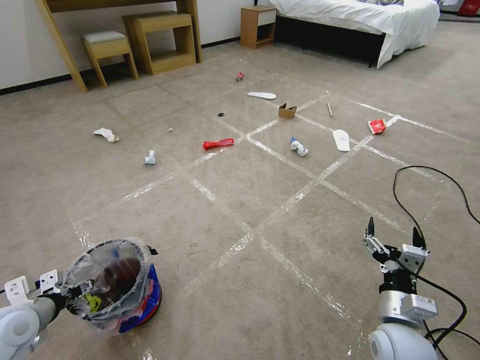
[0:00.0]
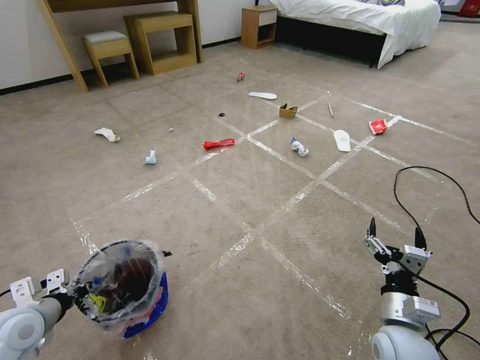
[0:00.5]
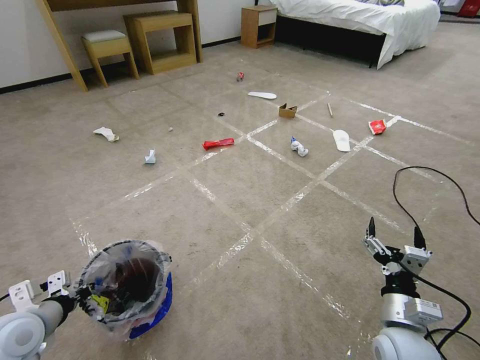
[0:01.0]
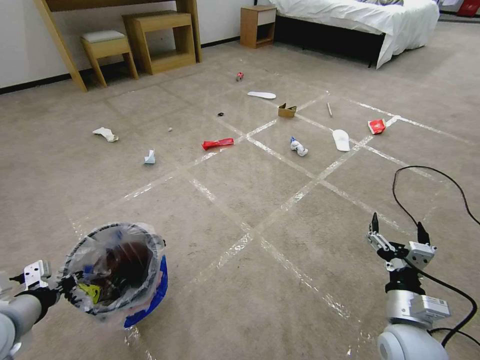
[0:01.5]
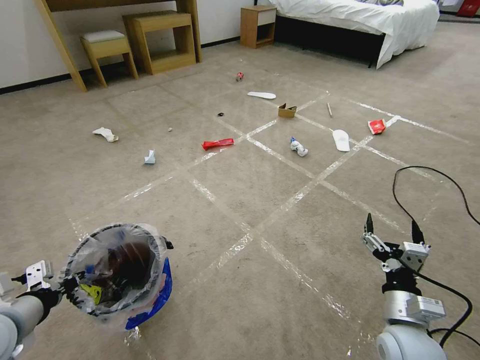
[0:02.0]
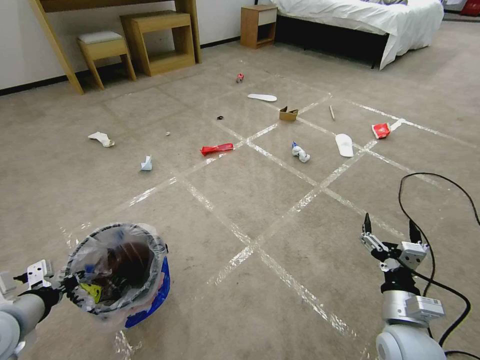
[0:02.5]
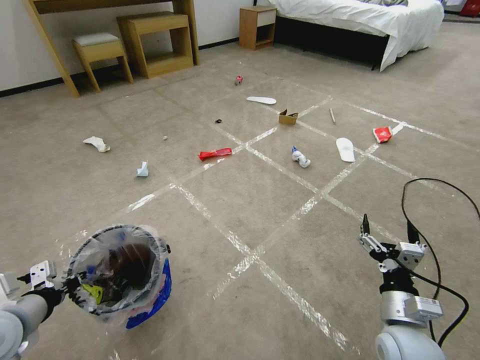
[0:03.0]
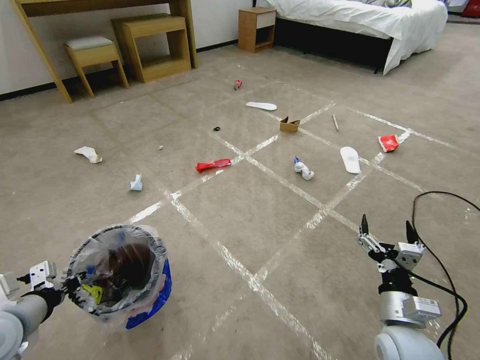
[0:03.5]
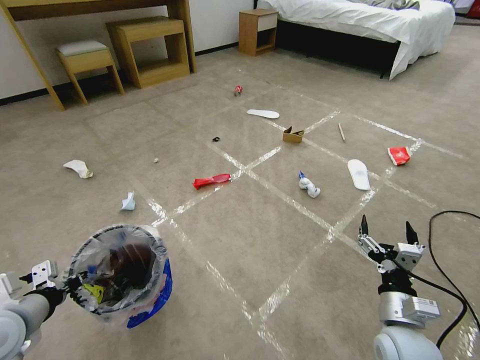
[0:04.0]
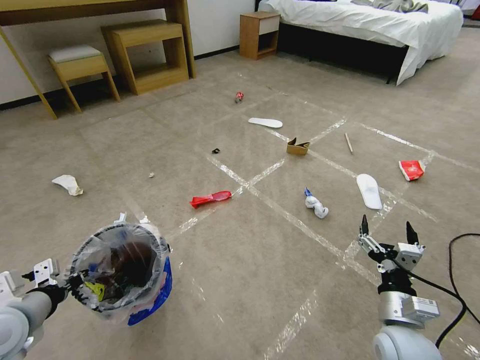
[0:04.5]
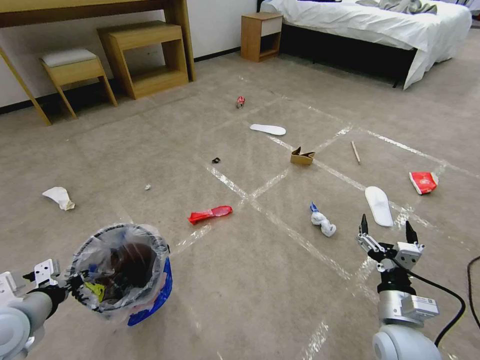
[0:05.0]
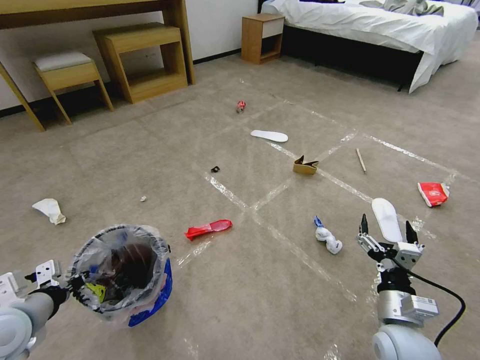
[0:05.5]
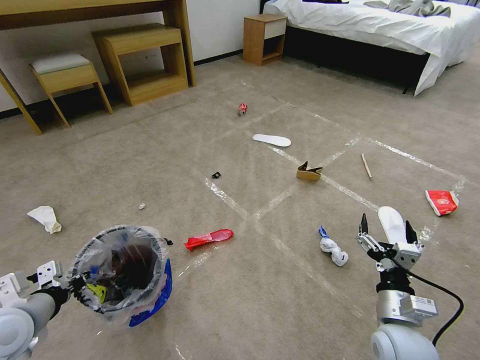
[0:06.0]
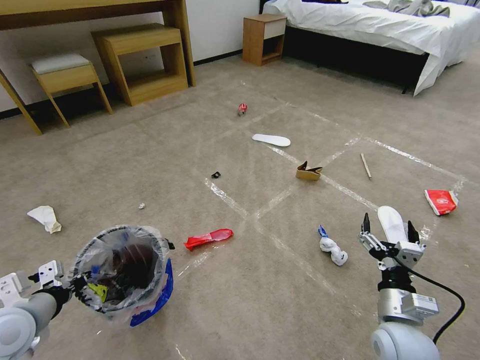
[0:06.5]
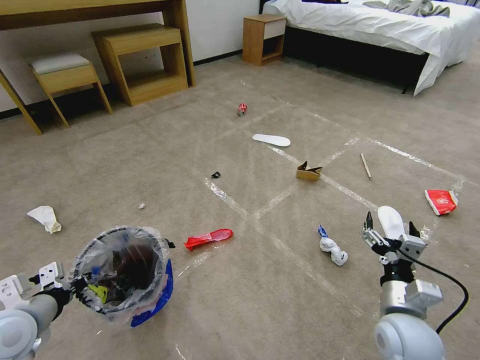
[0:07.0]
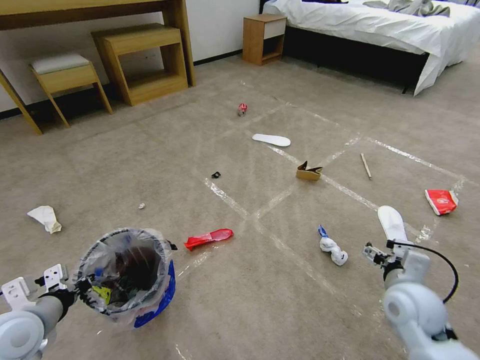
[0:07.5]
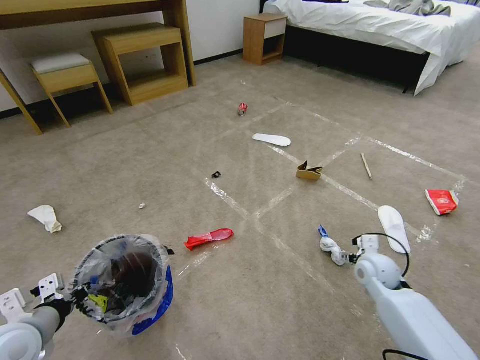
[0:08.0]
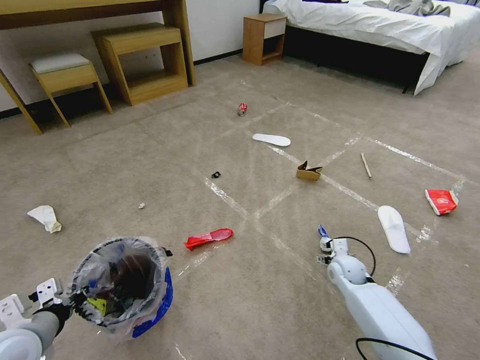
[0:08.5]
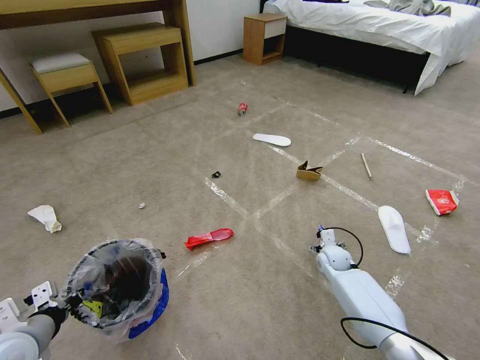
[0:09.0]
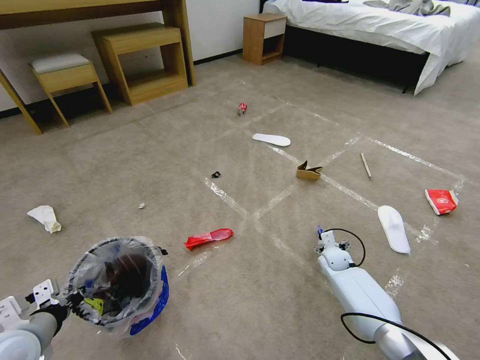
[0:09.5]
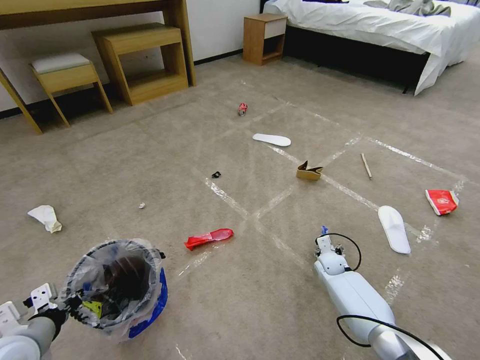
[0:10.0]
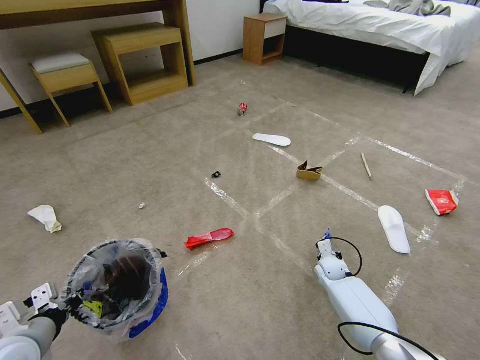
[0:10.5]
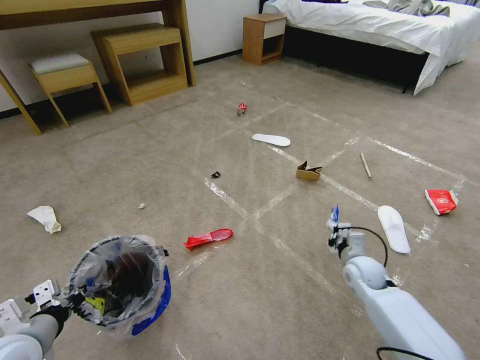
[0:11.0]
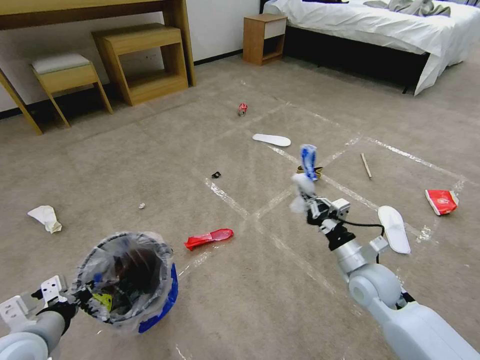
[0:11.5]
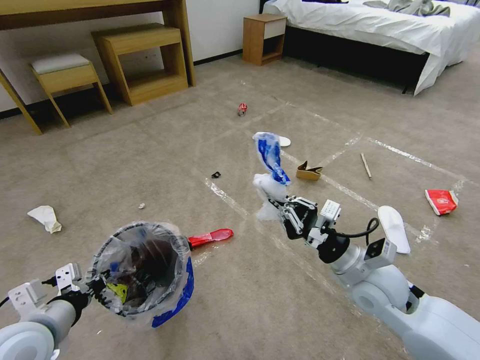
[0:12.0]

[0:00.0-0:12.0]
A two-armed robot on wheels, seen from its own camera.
Task of the whole recording: Pick up the trash bin and place the garbage on the floor into it.
0:00.0 to 0:02.0: The left gripper heads upward, covering some 10 cm, and closes.
0:06.0 to 0:08.0: The right gripper moves forward, roughly 15 cm.
0:08.0 to 0:10.0: The right gripper shifts roughly 15 cm downward and forward.
0:10.0 to 0:12.0: The left gripper moves to the right, approximately 5 cm; the right gripper heads upward and backward, covering about 30 cm, and closes its fingers.

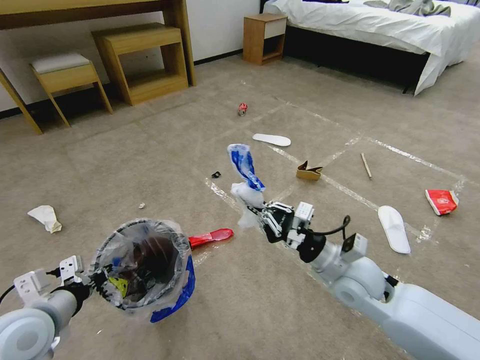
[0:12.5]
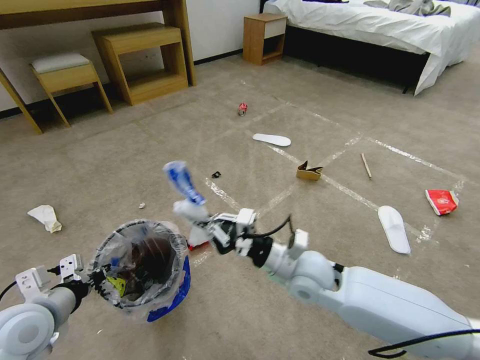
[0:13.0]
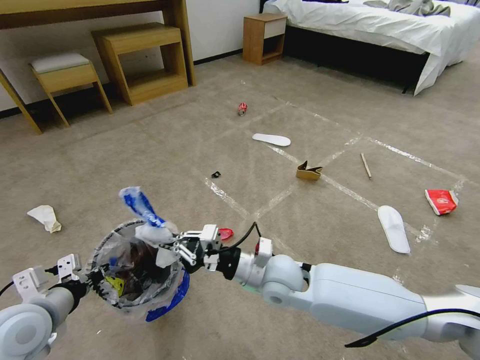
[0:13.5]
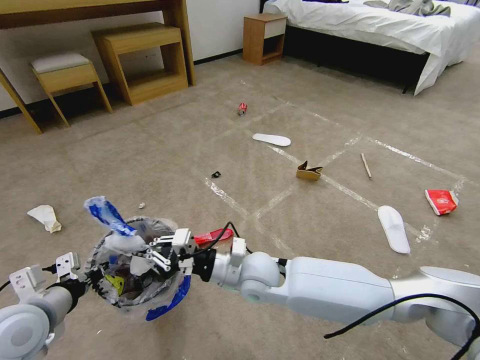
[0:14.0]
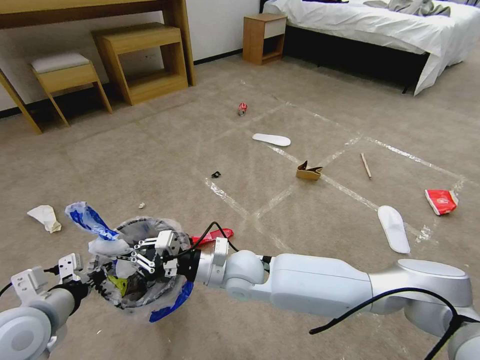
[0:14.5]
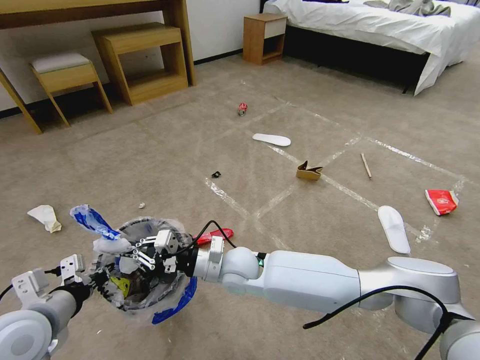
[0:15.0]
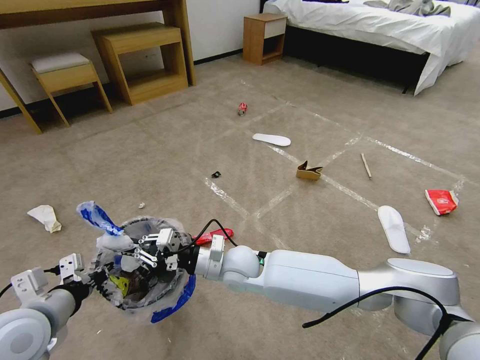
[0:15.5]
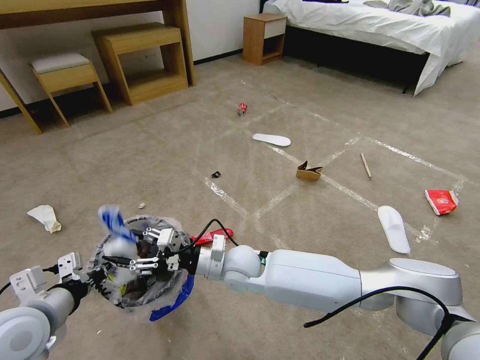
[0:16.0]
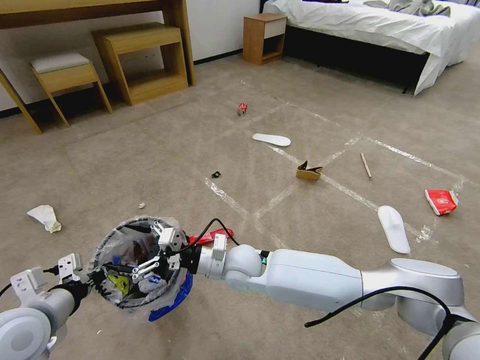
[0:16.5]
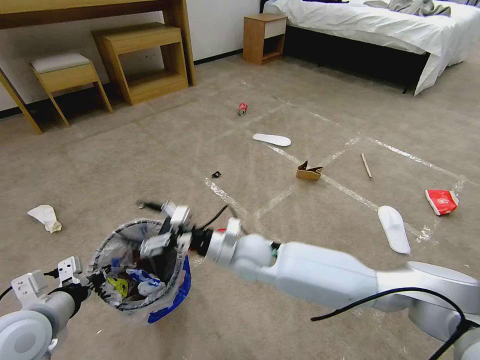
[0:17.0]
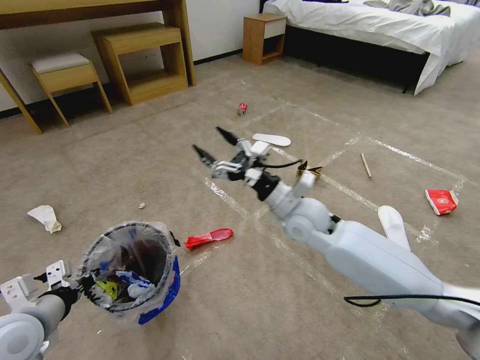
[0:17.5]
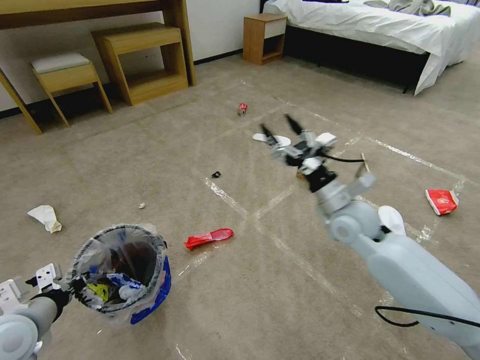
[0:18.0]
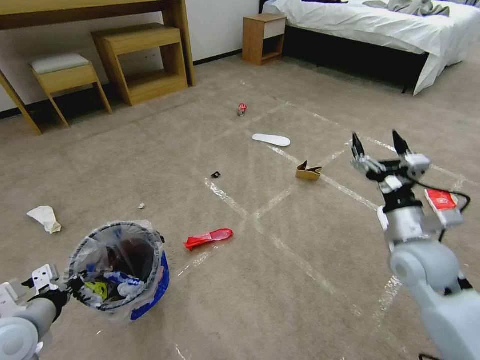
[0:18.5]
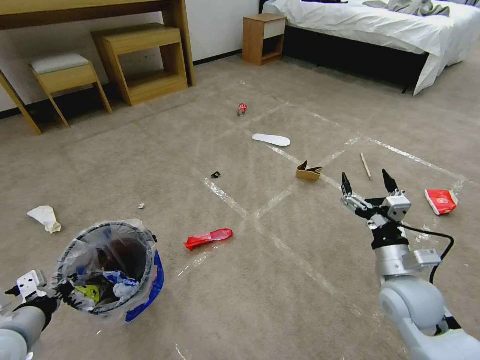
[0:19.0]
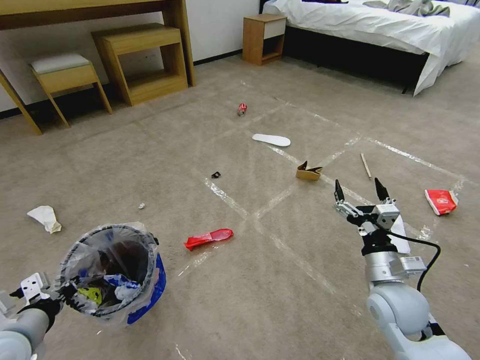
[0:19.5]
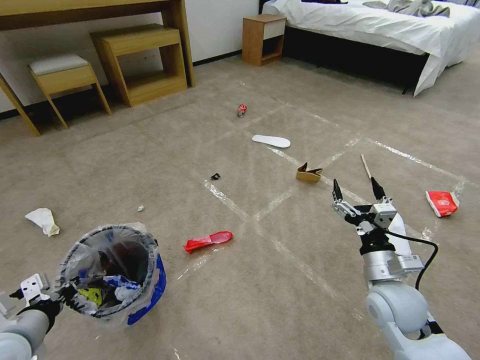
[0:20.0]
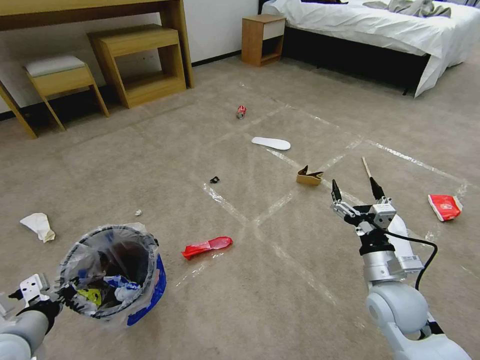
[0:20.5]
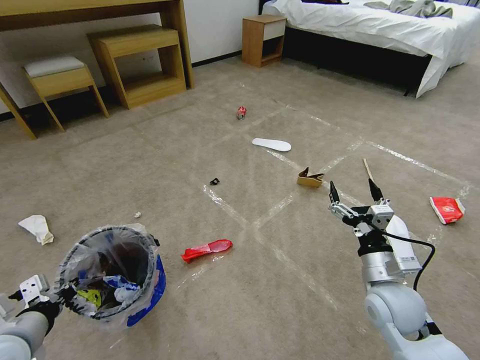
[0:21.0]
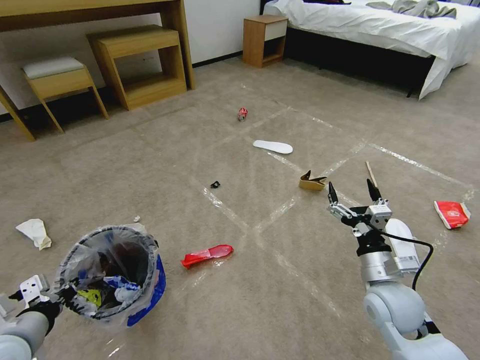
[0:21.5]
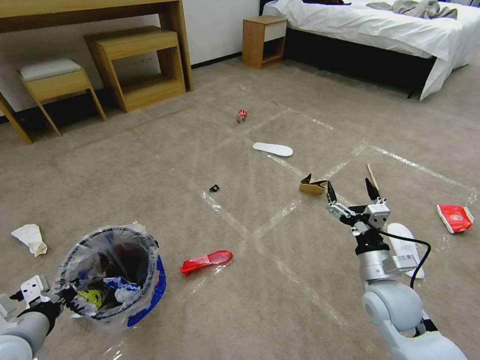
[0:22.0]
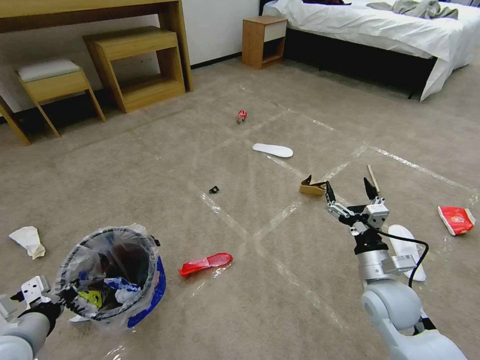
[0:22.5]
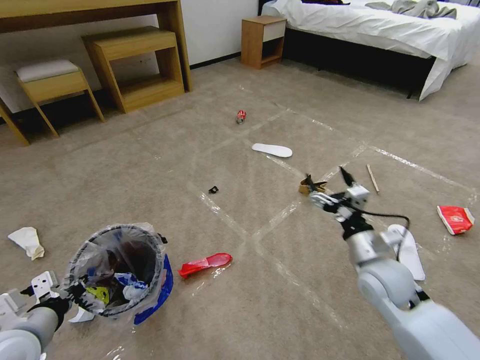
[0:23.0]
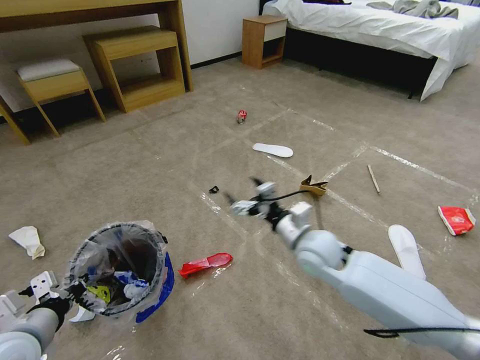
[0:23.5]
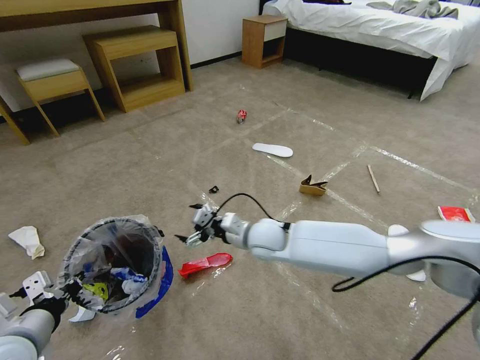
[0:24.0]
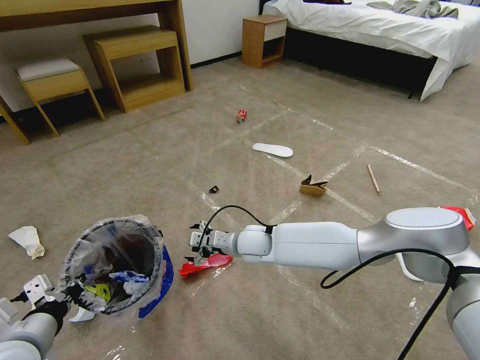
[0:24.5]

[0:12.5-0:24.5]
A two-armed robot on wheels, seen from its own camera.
Task of the whole recording: Pick up the trash bin and place the garbage on the floor into it.
0:12.5 to 0:14.5: The right gripper moves to the left, approximately 20 cm.
0:14.5 to 0:16.5: The right gripper opens its fingers.
0:16.5 to 0:18.5: The right gripper shifts about 35 cm to the right.
0:18.5 to 0:20.5: The right gripper goes about 10 cm downward.
0:20.5 to 0:22.5: Neither gripper changes place.
0:22.5 to 0:24.5: The right gripper goes roughly 30 cm to the left and forward.

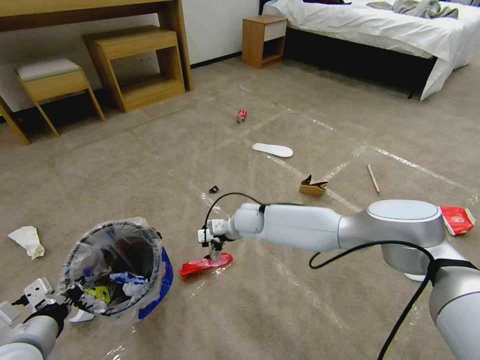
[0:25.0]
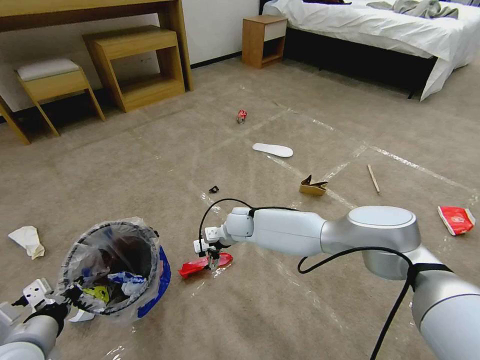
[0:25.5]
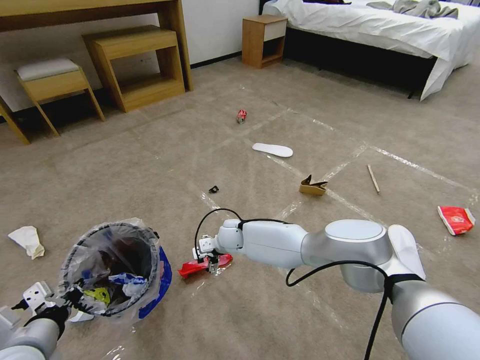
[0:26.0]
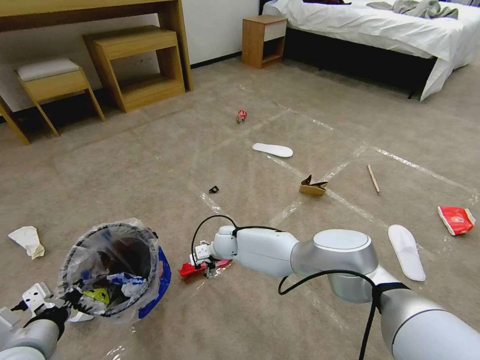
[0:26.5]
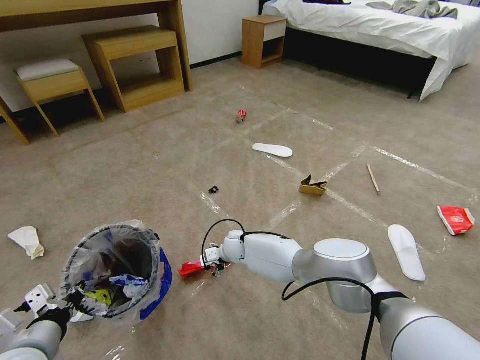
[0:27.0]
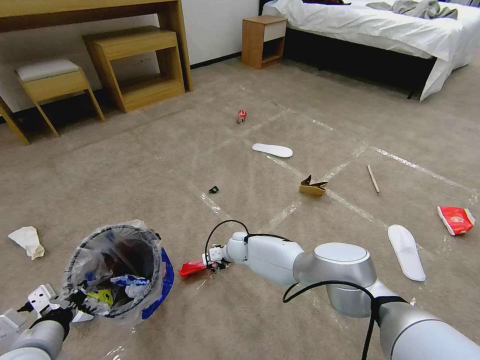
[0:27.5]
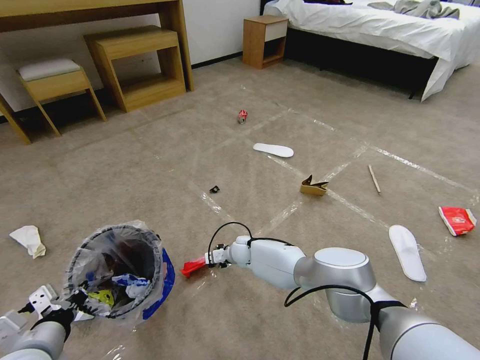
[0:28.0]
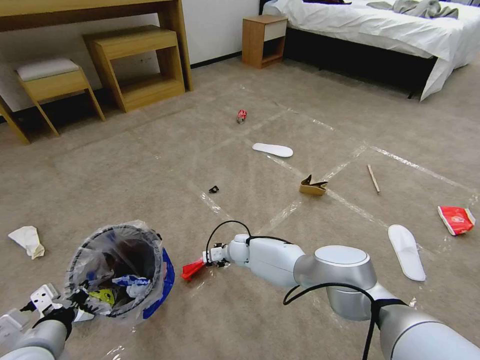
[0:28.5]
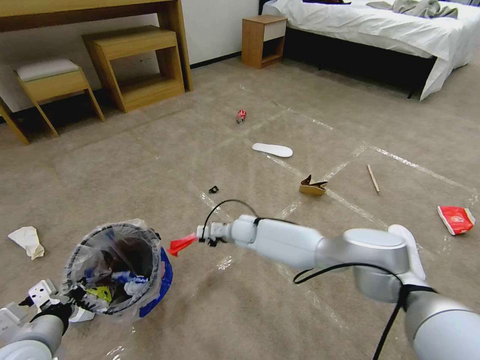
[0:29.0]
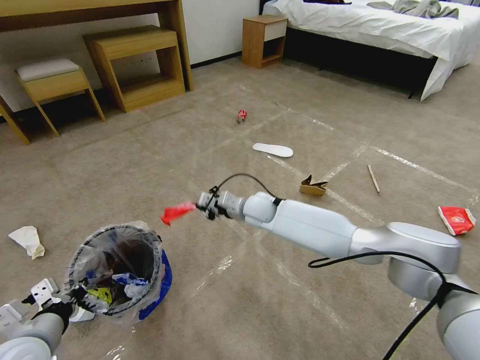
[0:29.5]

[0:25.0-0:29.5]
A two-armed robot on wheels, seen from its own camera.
Task of the whole recording: Pick up the trash bin and place the garbage on the floor into it.
0:25.0 to 0:27.0: The right gripper travels downward by roughly 10 cm.
0:27.0 to 0:29.5: The right gripper moves upward, some 15 cm, and closes up.
